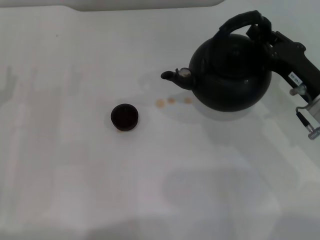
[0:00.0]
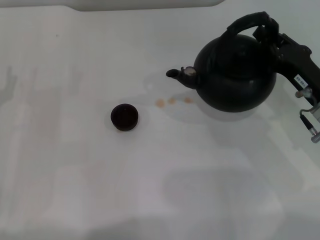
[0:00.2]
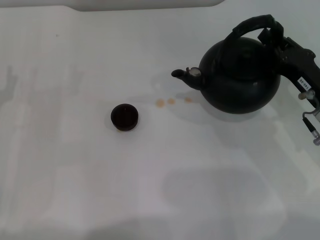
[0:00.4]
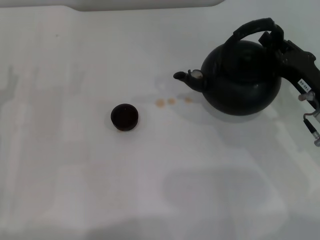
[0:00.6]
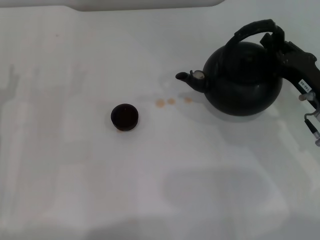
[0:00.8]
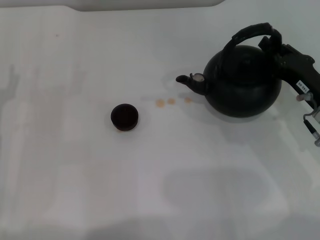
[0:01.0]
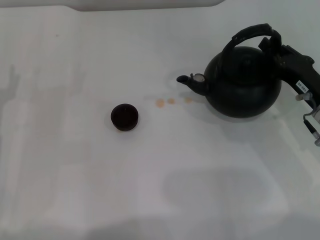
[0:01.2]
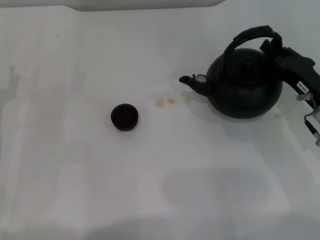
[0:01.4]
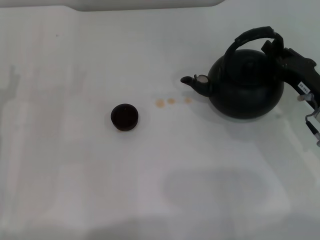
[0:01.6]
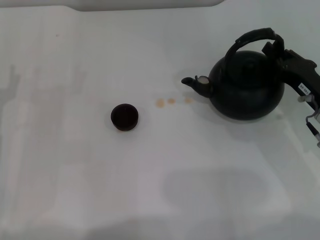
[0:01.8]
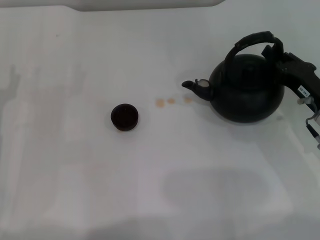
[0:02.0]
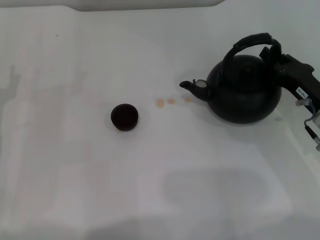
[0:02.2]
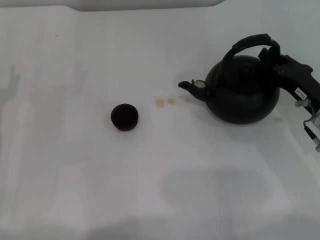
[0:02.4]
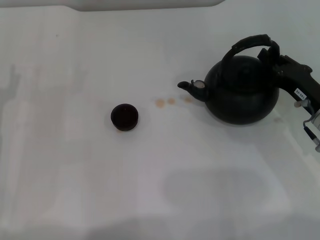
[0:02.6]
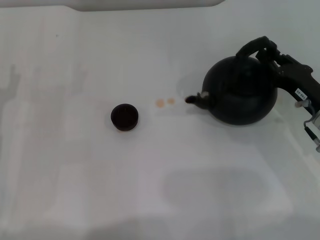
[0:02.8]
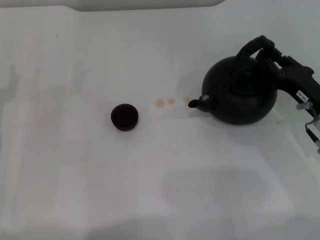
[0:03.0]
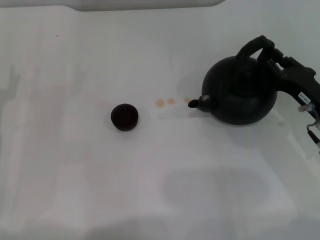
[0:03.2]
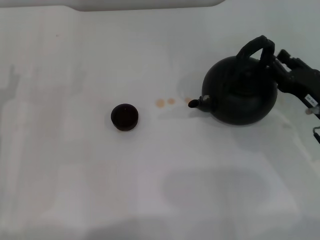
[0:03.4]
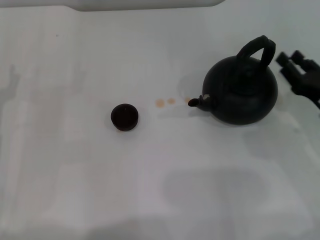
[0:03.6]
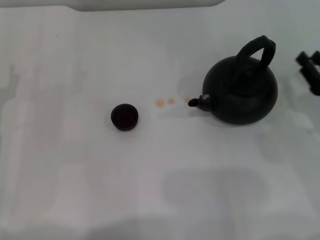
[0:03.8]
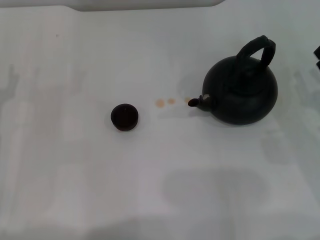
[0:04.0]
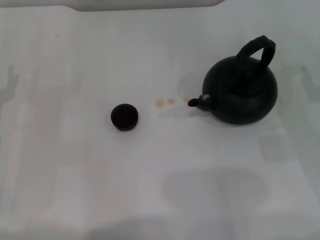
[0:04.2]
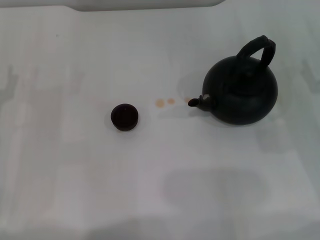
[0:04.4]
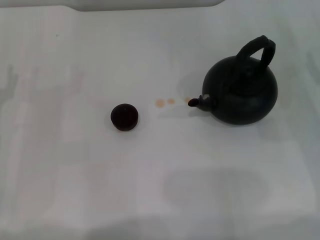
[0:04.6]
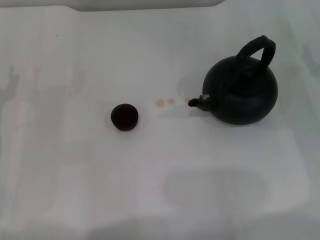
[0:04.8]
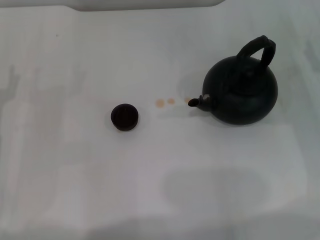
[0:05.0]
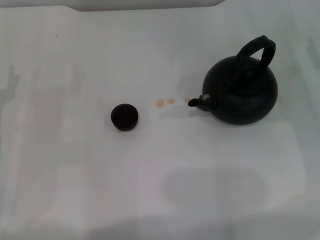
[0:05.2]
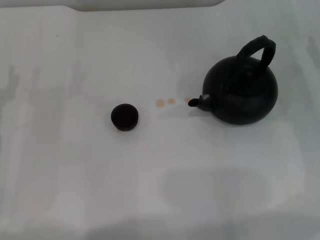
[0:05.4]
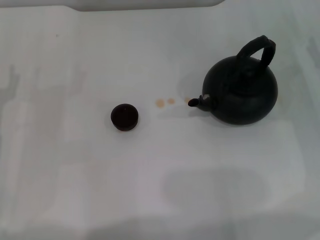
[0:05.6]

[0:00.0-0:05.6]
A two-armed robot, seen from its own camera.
Task of the whole recording: Grasp the handle of the teapot with one hand and pour tea into the teacup.
Step, 0:00.0 to 0:03.6: Put down the teapot with the right gripper.
0:00.0 to 0:01.4: The grippers move only a little.
0:01.4 to 0:02.8: Both grippers stay put.
0:02.8 to 0:04.2: The right gripper moves to the right, some 5 cm.
